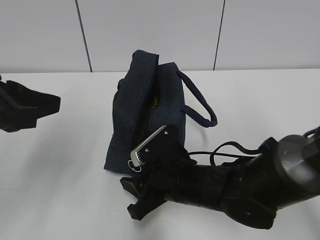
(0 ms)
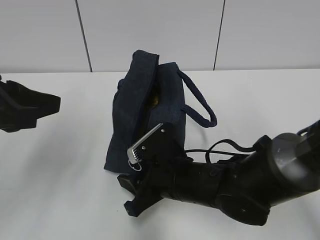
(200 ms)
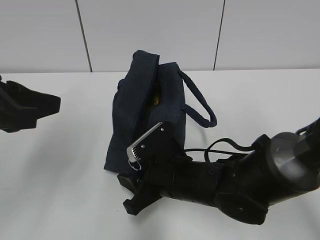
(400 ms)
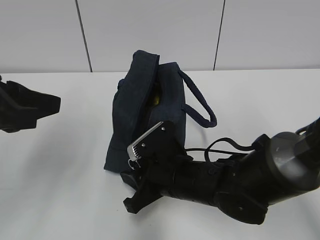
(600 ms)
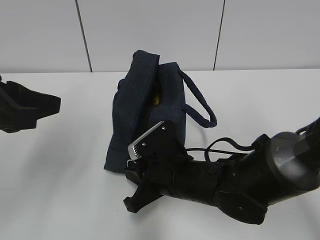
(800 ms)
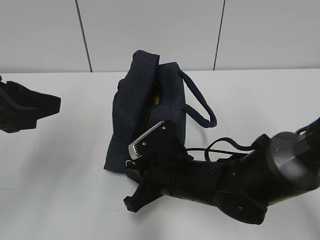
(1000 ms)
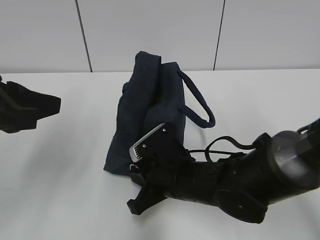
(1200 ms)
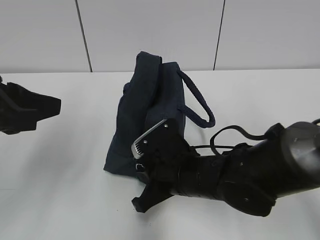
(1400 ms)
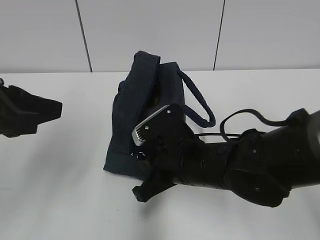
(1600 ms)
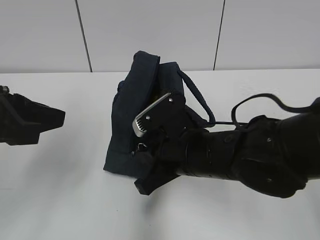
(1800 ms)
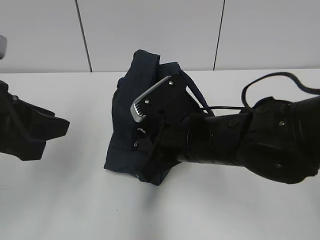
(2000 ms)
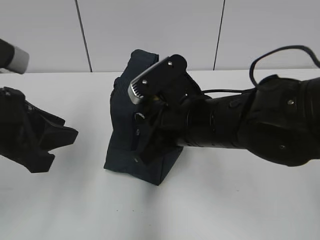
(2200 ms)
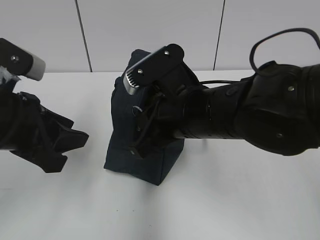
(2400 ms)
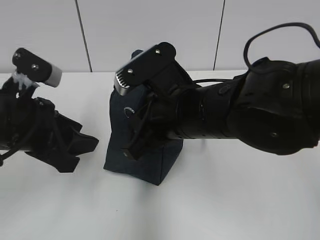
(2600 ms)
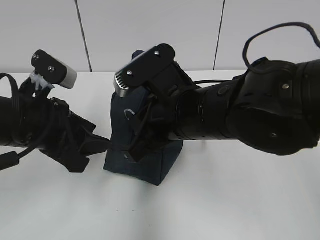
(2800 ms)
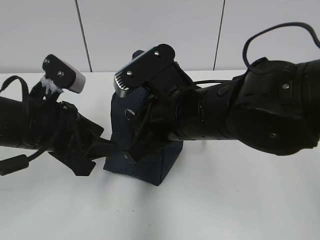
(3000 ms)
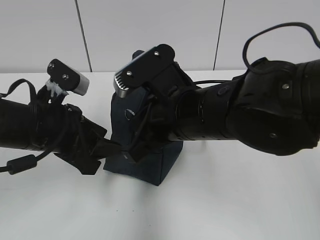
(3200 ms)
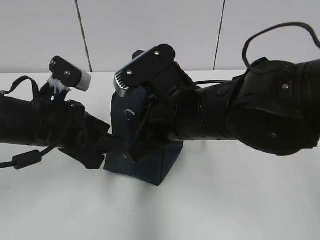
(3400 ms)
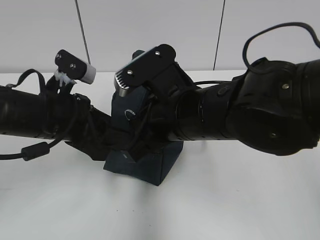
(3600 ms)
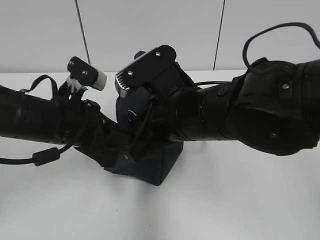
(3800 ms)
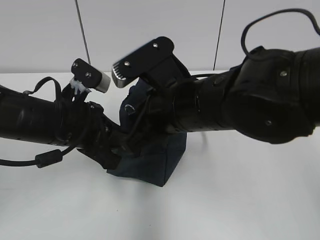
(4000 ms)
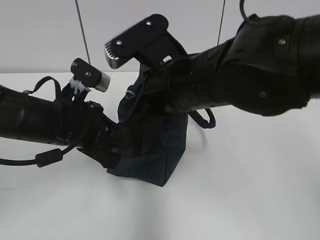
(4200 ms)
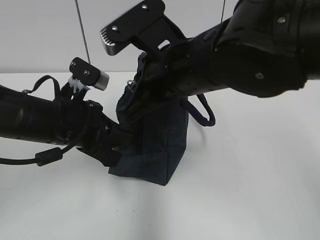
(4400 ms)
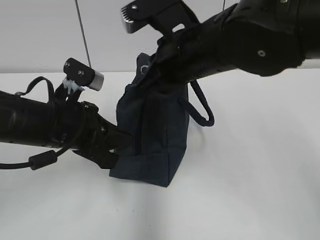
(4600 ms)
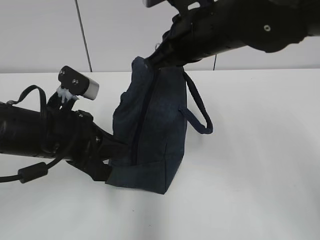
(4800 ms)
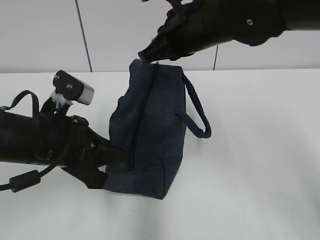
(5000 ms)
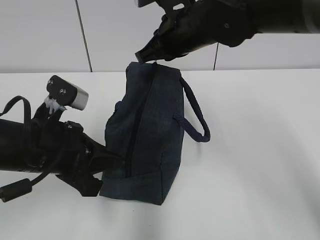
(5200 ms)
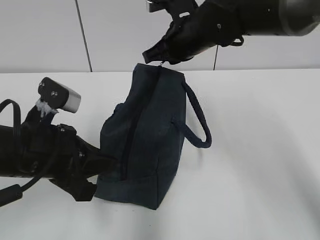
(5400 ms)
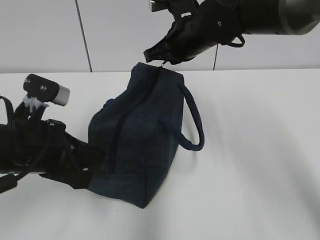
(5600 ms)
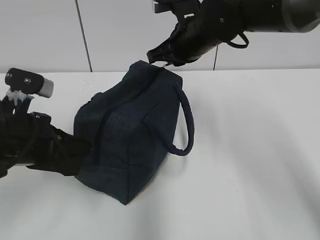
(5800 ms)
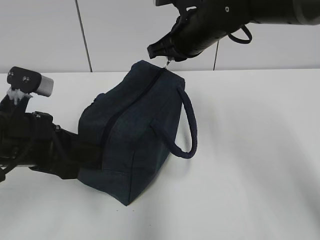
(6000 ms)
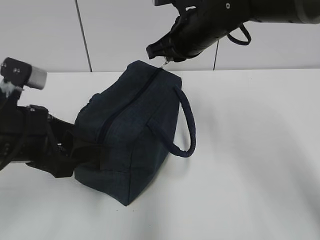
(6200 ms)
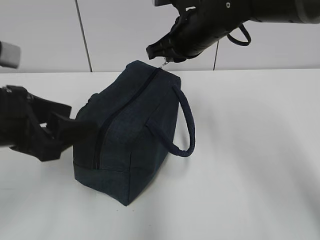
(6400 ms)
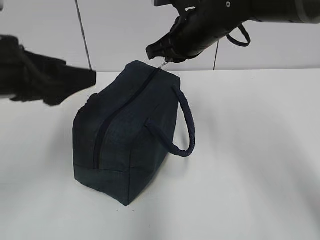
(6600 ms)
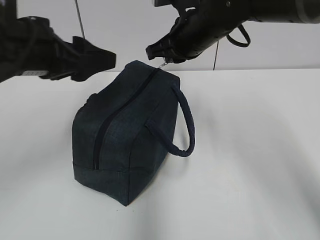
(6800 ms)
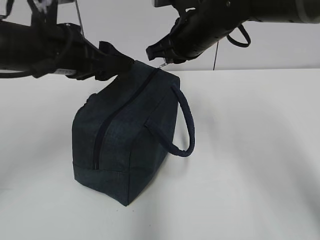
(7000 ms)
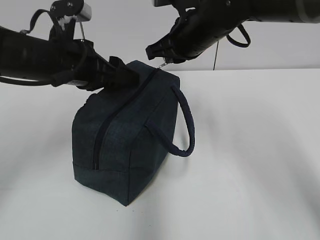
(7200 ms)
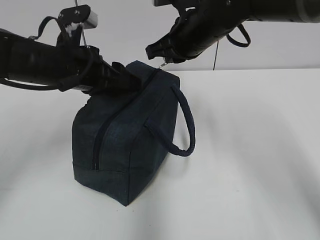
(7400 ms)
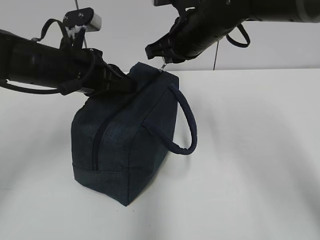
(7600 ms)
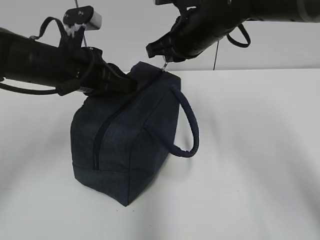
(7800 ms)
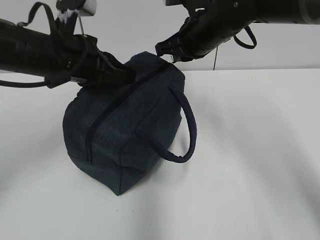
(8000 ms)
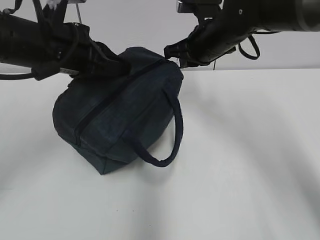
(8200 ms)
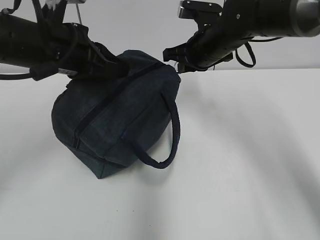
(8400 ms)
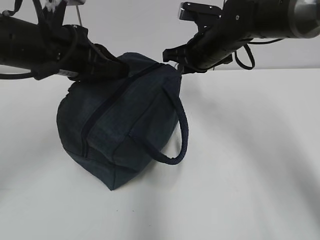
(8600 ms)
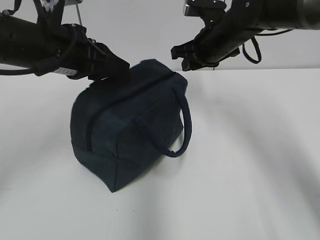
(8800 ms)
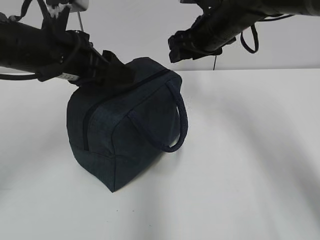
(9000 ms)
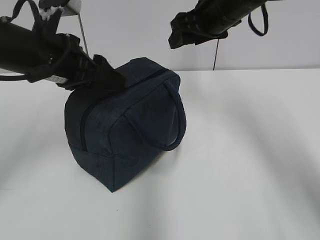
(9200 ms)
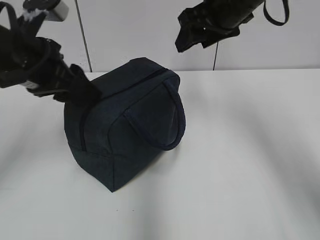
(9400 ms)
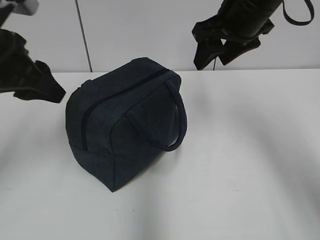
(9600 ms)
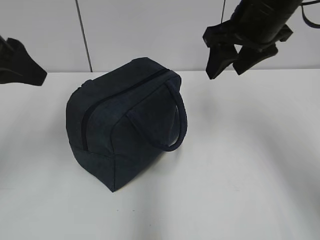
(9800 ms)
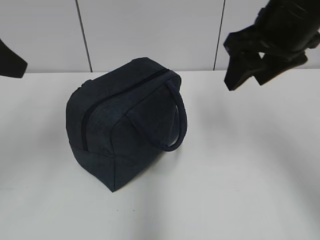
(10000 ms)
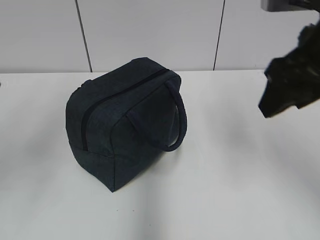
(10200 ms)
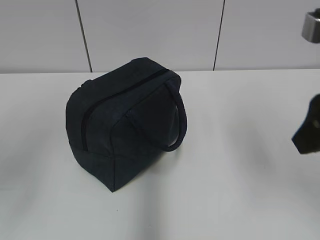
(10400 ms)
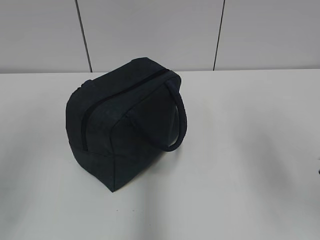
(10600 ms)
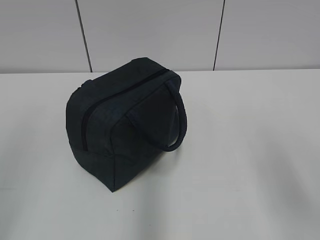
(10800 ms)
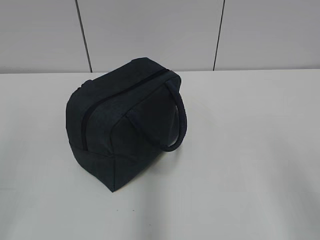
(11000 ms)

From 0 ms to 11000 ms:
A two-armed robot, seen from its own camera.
From 0 ms to 1600 ms: The right gripper closes.
From 1600 ms to 3200 ms: The right gripper is displaced upward by roughly 10 cm. Meanwhile the left gripper moves downward and forward, about 10 cm.
From 3200 ms to 4800 ms: The right gripper shifts about 10 cm forward and upward. The left gripper closes up.
From 4800 ms to 6200 ms: The right gripper moves forward, approximately 5 cm, while the left gripper moves some 5 cm, and opens its fingers.
From 6200 ms to 7800 ms: The left gripper is displaced forward by some 10 cm, and closes.
From 7800 ms to 9400 ms: The left gripper goes approximately 5 cm to the left, and opens its fingers. Meanwhile the right gripper is displaced upward by roughly 5 cm, and opens.
From 9400 ms to 11000 ms: The left gripper travels backward and to the left by approximately 30 cm. The right gripper heads backward, covering about 30 cm.

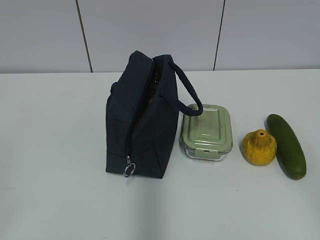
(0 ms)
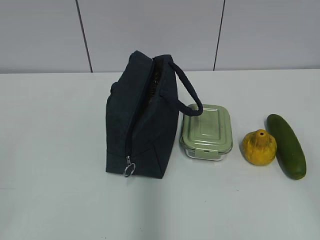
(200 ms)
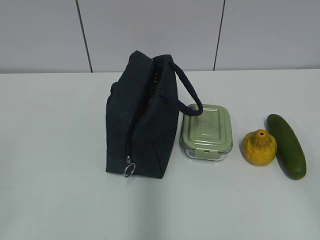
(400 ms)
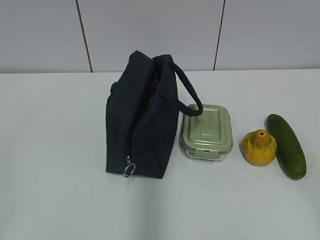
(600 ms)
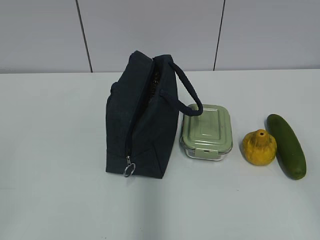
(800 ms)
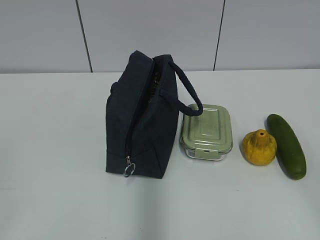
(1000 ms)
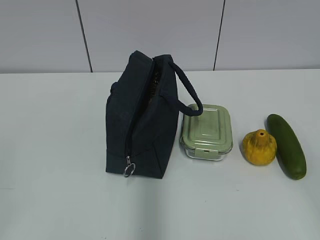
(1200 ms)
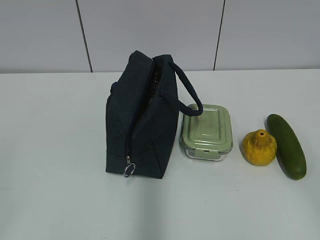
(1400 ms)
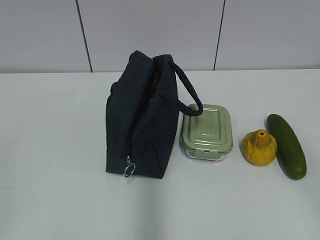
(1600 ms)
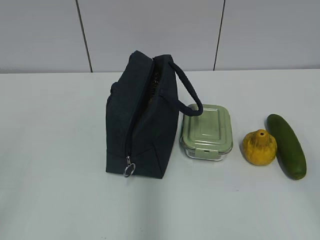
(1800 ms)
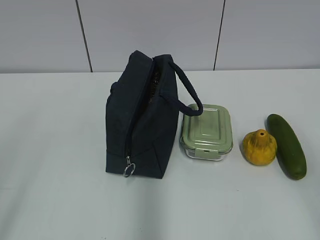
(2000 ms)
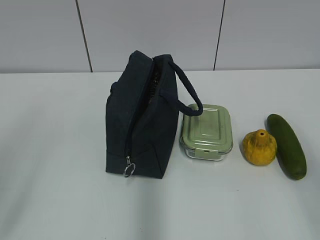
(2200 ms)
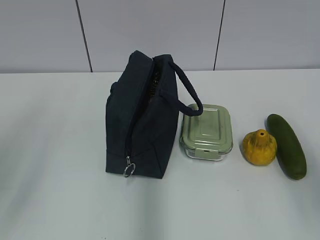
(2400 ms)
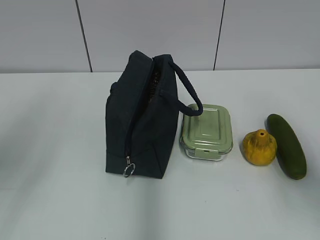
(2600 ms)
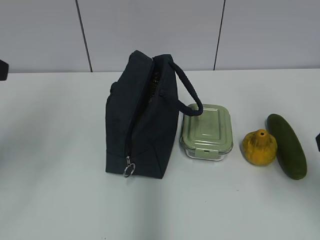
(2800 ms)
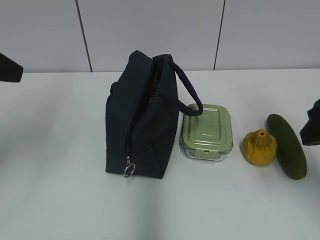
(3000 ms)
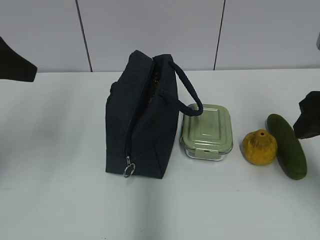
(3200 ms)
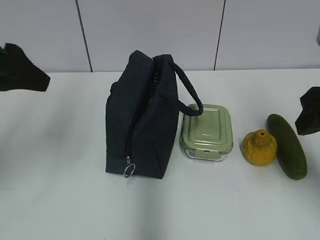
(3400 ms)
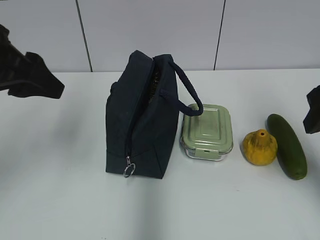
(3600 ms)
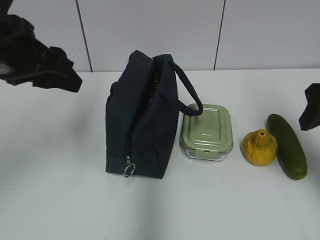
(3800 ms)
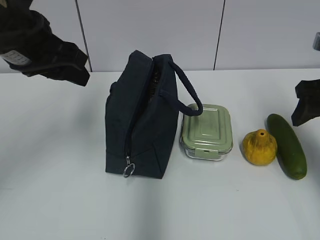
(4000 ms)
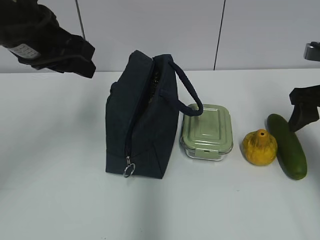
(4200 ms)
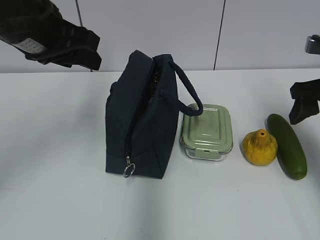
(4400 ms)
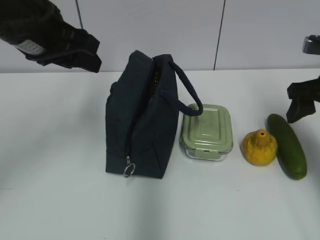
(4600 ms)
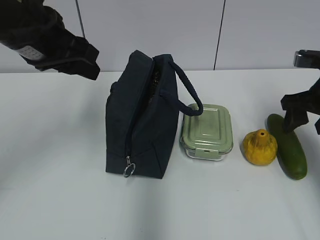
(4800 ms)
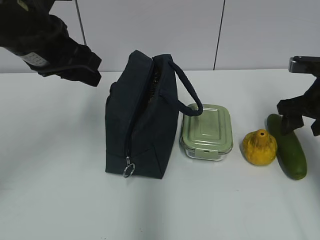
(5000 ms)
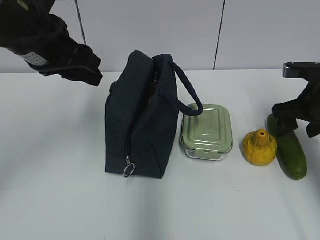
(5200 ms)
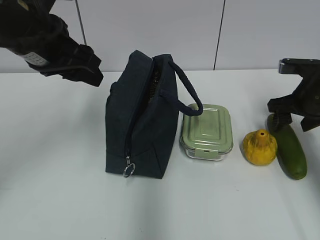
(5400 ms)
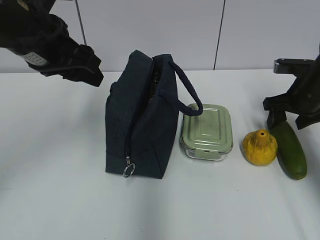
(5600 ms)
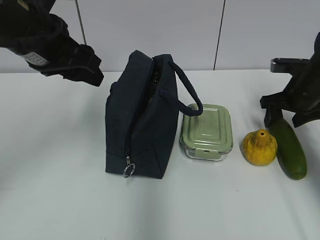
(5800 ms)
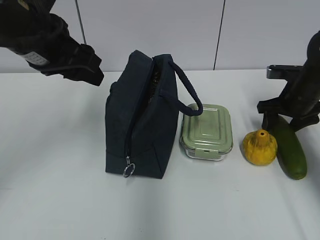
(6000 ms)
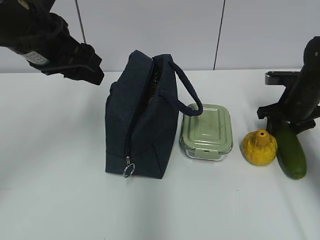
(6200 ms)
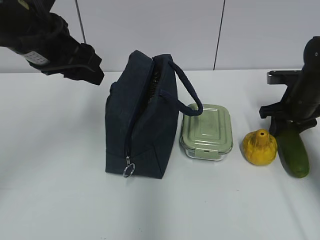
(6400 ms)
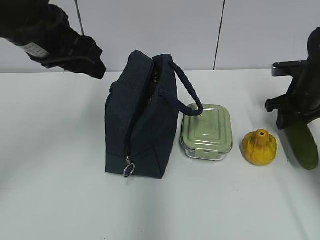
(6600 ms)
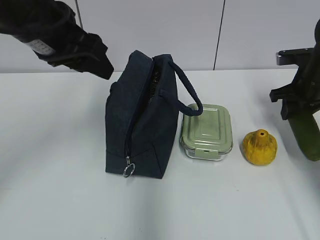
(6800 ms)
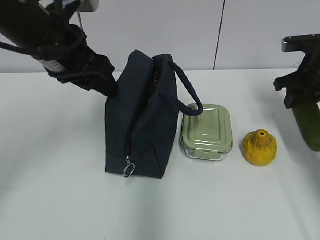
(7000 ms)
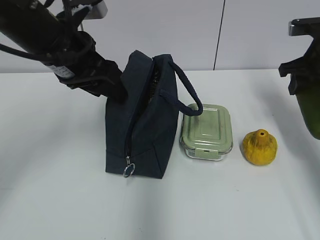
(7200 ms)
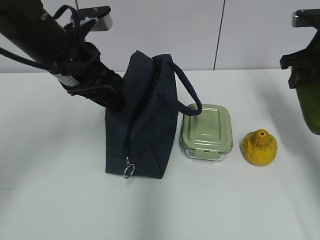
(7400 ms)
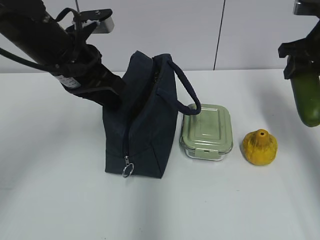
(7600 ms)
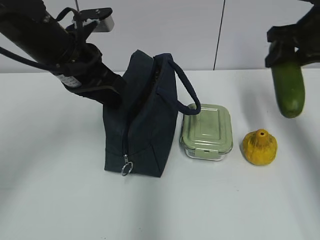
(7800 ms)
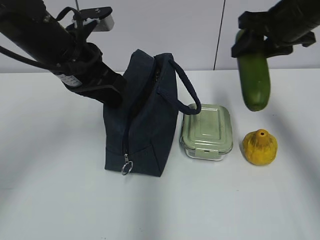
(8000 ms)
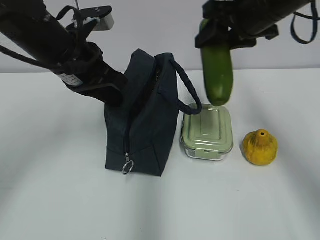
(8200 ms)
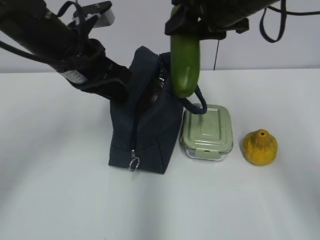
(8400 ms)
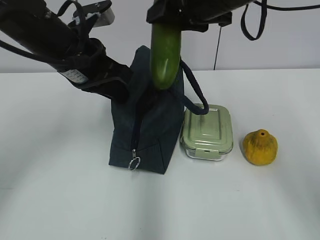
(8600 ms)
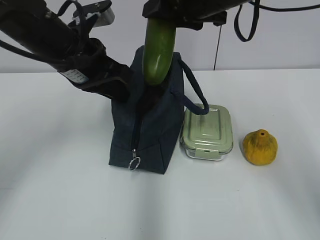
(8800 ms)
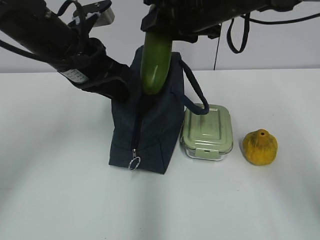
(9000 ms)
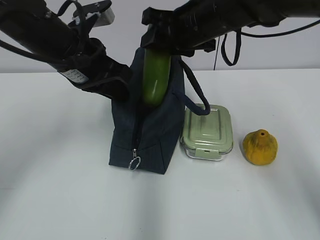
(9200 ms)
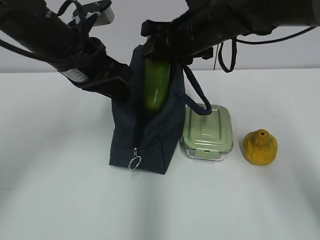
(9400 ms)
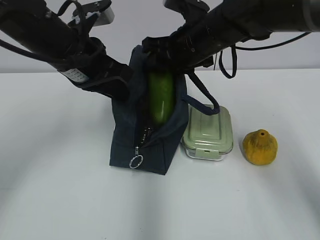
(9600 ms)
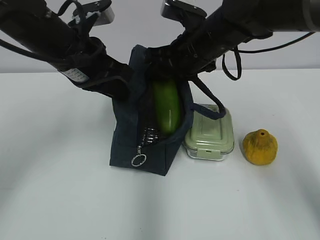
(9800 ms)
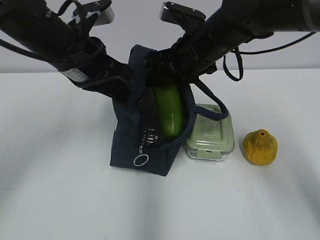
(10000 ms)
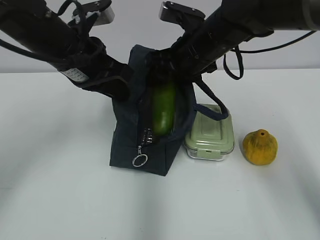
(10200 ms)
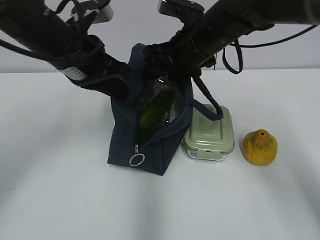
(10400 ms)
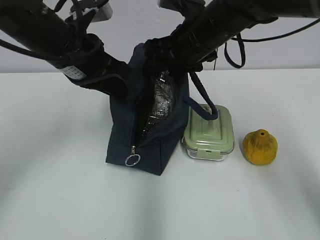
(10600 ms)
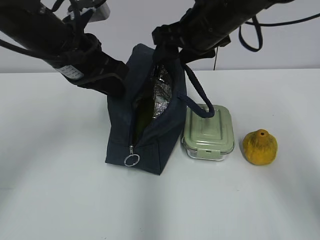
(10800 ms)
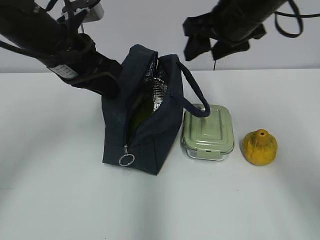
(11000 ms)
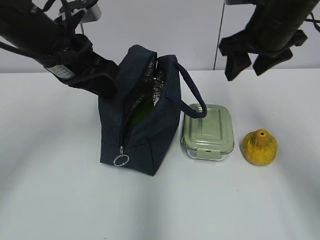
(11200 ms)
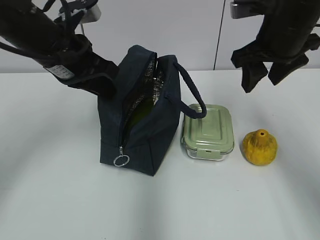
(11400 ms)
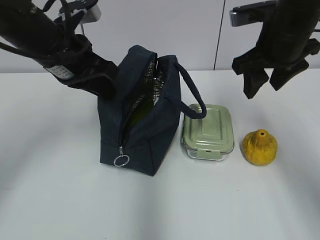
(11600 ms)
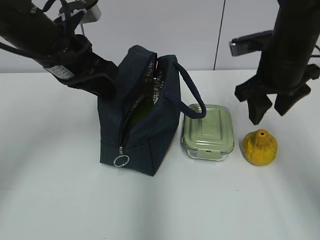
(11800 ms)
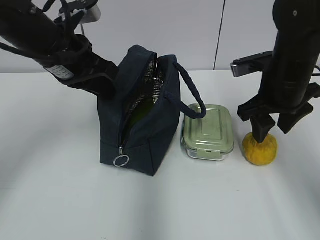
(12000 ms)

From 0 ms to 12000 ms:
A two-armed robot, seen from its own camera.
Step, from 0 ms to 6200 ms: Grab the cucumber with your right hand.
Step, from 6400 ms to 9200 ms: Grab the lunch bag with your left hand.
Step, from 9400 ms to 11000 ms: Place it into the bag with your right hand.
From 1600 ms to 3000 ms: Both grippers travel together forward, approximately 25 cm. The left gripper opens up.
From 3000 ms to 4400 ms: The left gripper travels to the right and forward by some 10 cm. Meanwhile the right gripper shifts roughly 10 cm forward.
From 4400 ms to 6000 ms: The right gripper shifts approximately 15 cm downward and forward.
From 6000 ms to 7600 ms: The right gripper travels upward by approximately 15 cm, and closes its fingers; the left gripper changes place by approximately 5 cm, and closes.
From 7600 ms to 9000 ms: The right gripper moves to the left, roughly 20 cm.
From 9000 ms to 10400 ms: The right gripper goes some 5 cm downward.
From 10400 ms to 12000 ms: The right gripper is displaced to the right and backward by some 15 cm.
